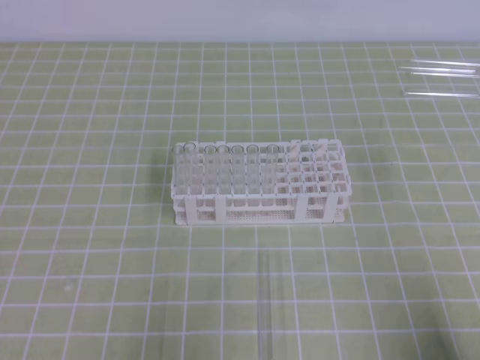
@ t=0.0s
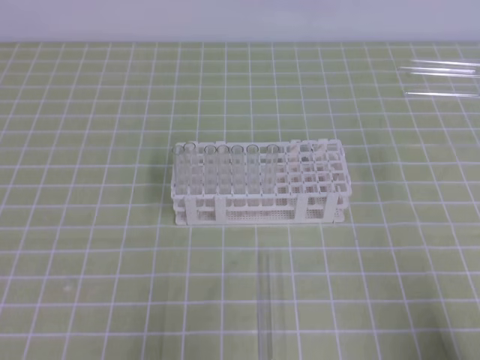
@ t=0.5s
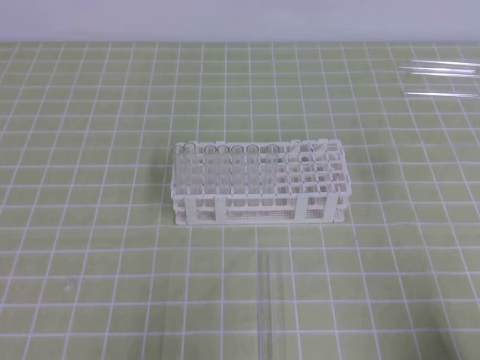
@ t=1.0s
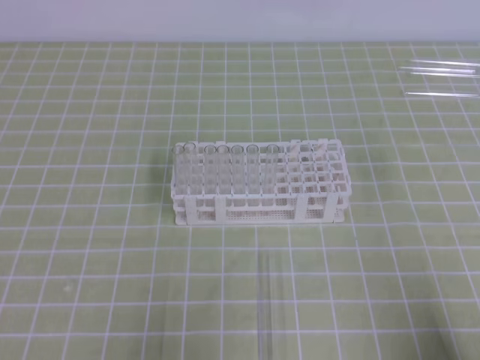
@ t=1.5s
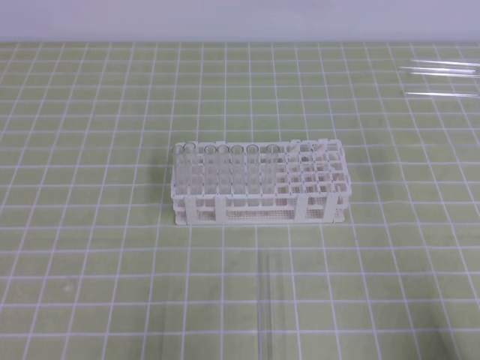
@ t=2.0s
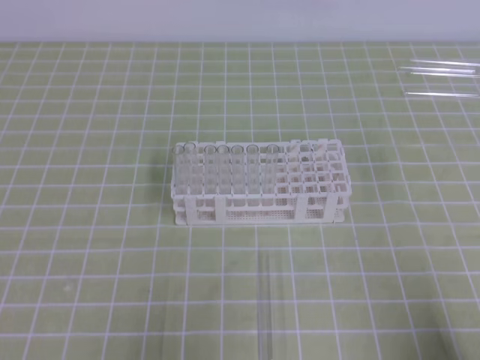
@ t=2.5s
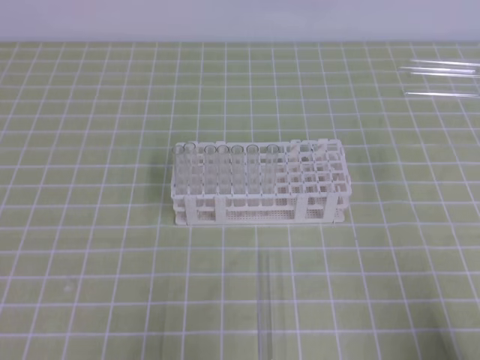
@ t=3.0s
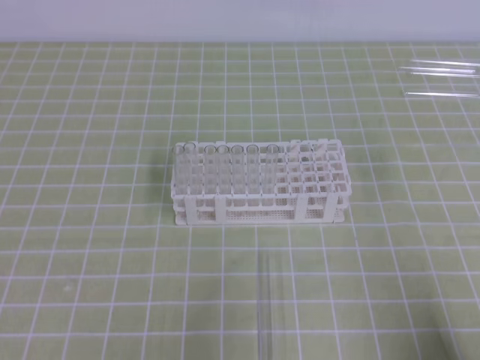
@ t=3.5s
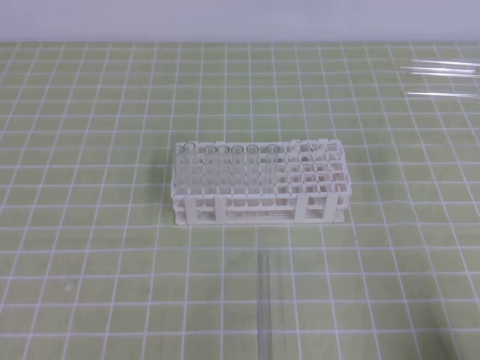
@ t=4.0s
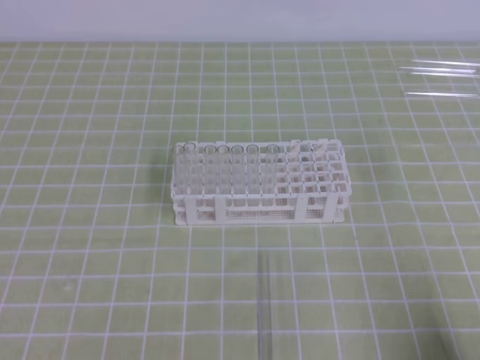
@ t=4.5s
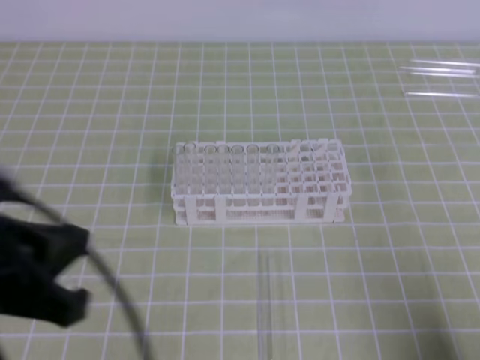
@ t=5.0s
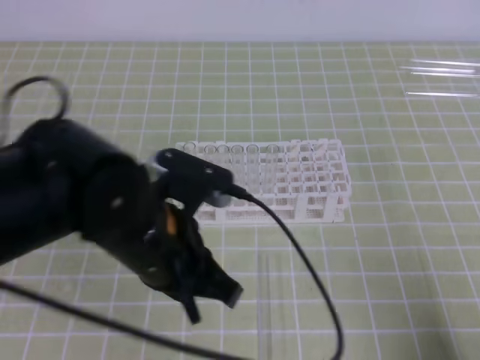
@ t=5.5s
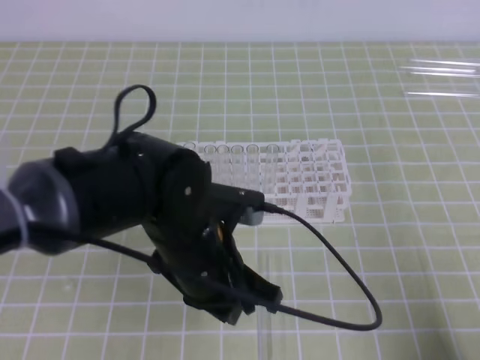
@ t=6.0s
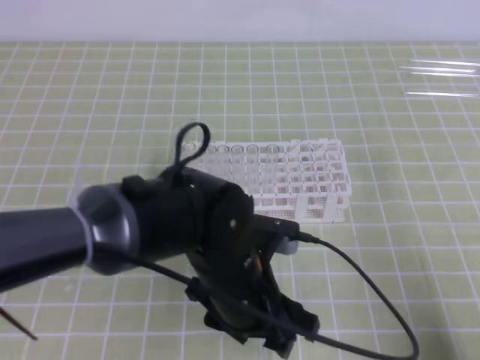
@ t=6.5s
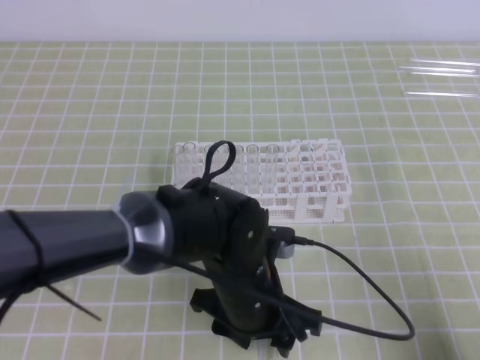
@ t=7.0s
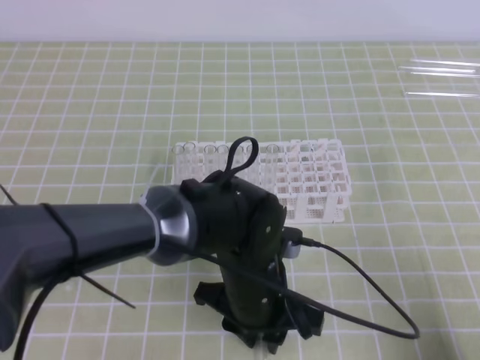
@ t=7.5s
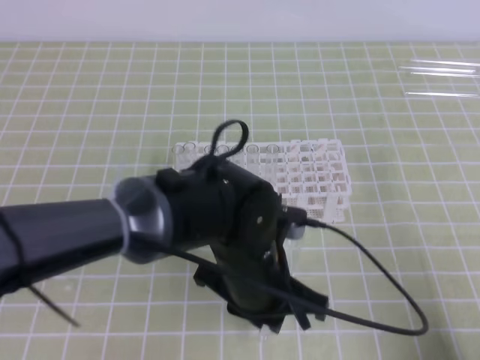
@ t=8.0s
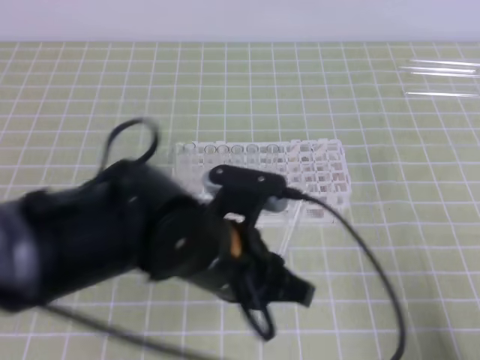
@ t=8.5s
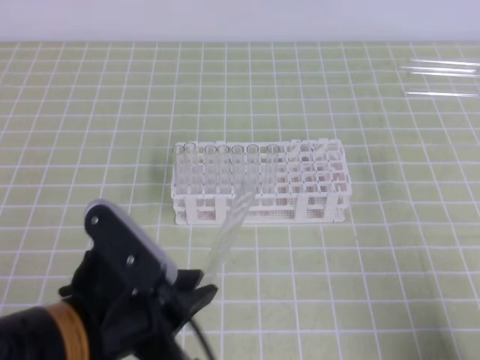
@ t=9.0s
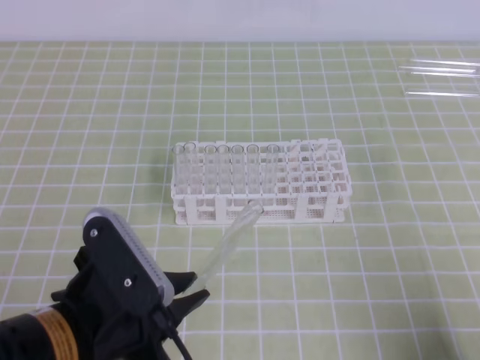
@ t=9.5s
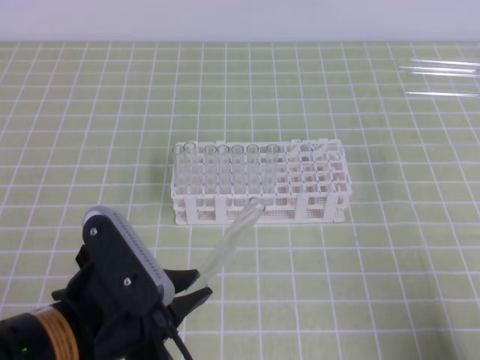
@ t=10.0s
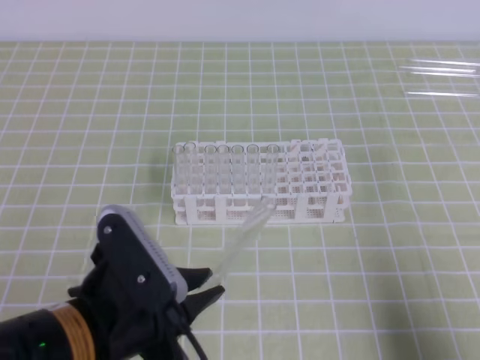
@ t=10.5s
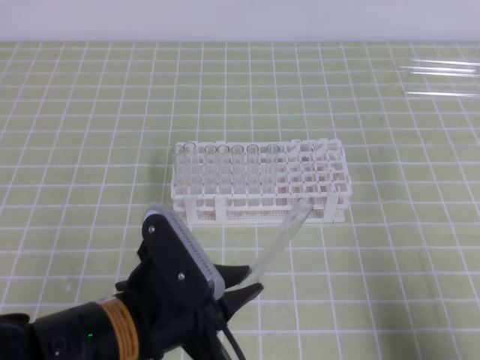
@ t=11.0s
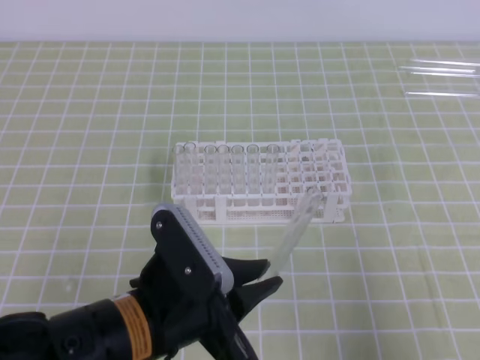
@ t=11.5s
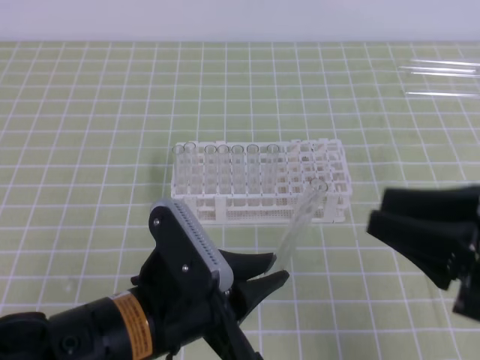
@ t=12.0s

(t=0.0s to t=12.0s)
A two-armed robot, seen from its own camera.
t=0.0s - t=2.0s: Neither gripper changes place.
t=4.0s - t=6.0s: The left gripper moves to the right and forward, roughly 30 cm.
t=6.0s - t=8.0s: The left gripper travels to the right by about 5 cm, and opens, then closes again.
t=8.0s - t=10.0s: The left gripper heads to the left and backward, covering roughly 15 cm.
t=10.0s - t=12.0s: The right gripper goes roughly 15 cm upward, forward and to the left, and opens its fingers, while the left gripper is displaced to the right by approximately 5 cm.

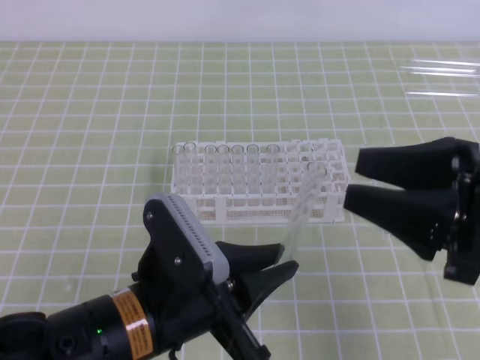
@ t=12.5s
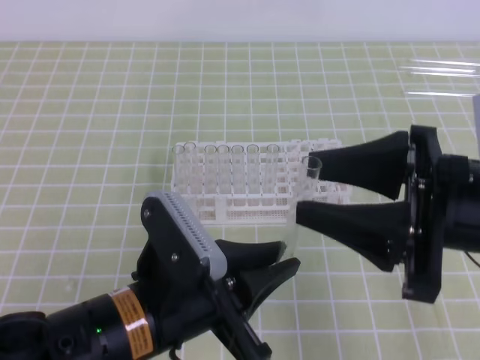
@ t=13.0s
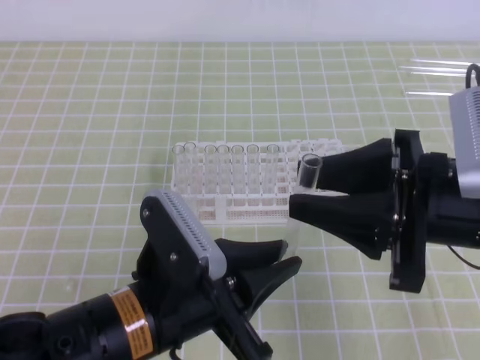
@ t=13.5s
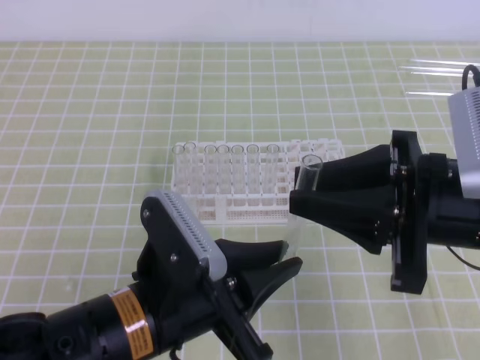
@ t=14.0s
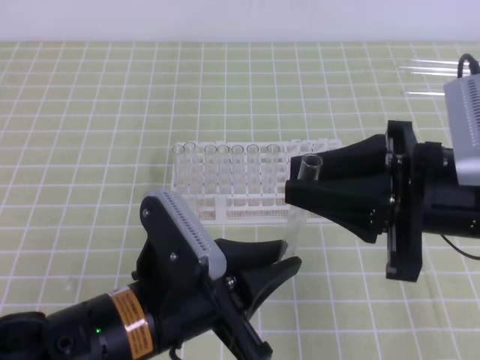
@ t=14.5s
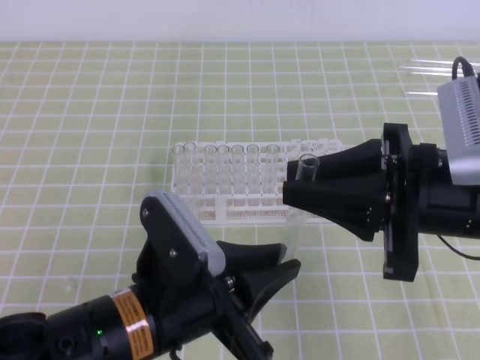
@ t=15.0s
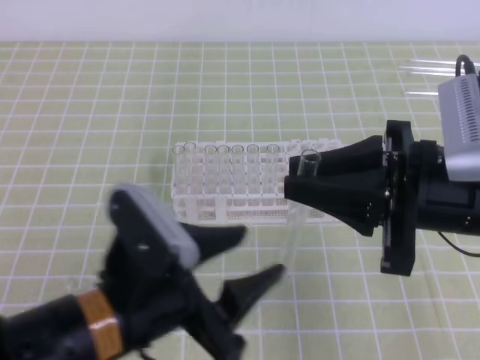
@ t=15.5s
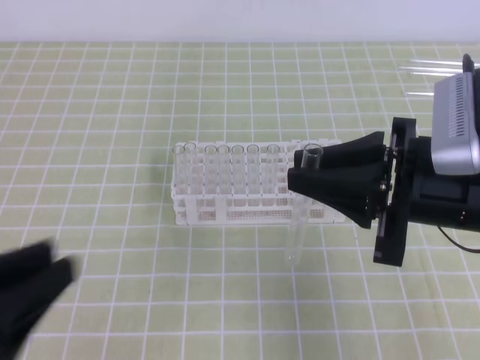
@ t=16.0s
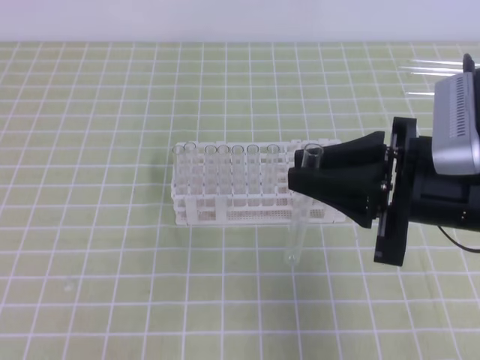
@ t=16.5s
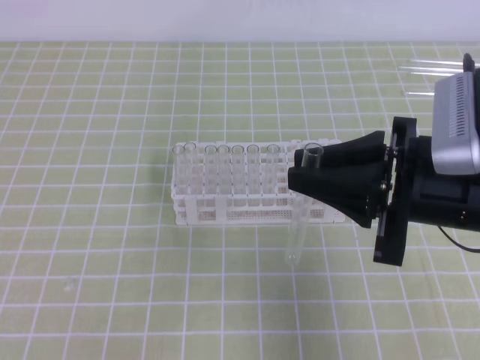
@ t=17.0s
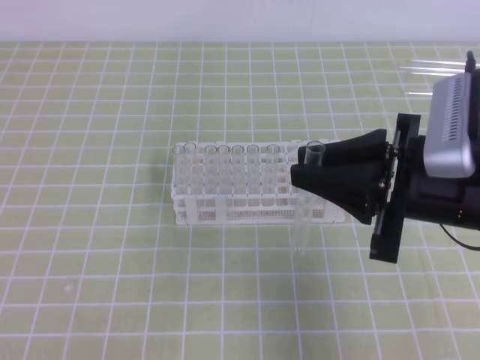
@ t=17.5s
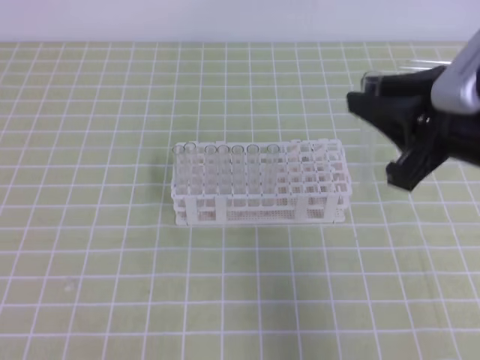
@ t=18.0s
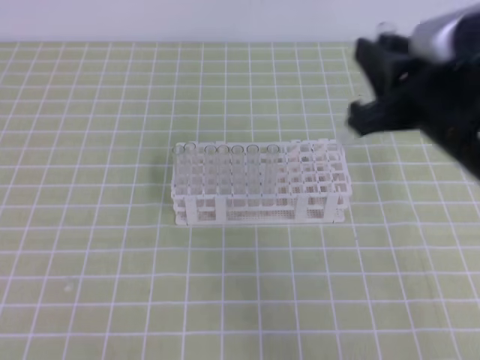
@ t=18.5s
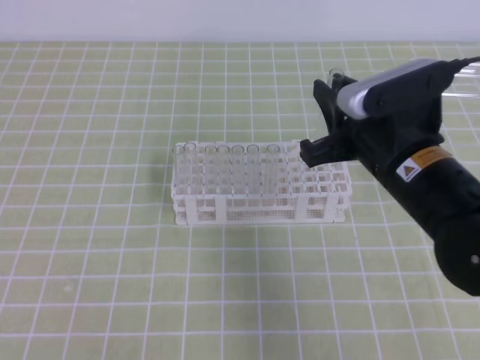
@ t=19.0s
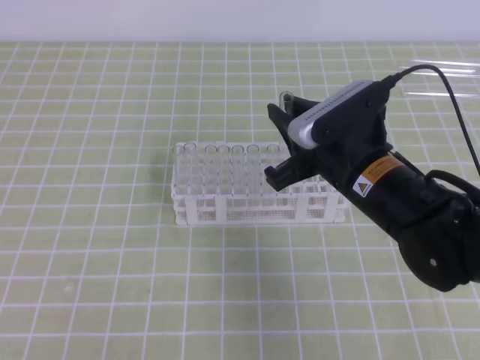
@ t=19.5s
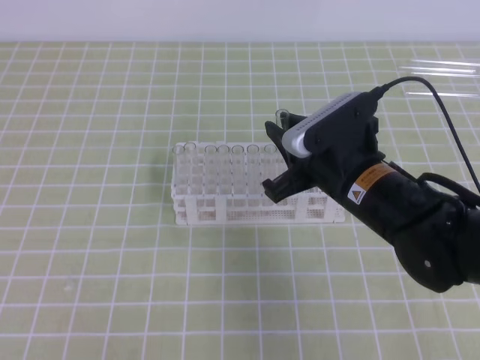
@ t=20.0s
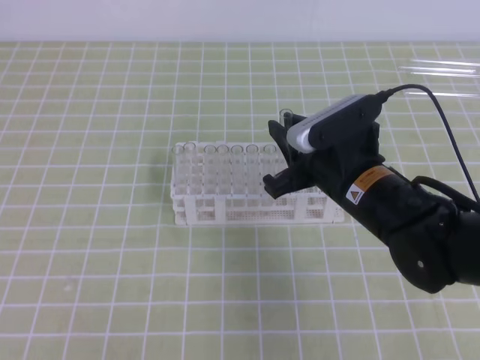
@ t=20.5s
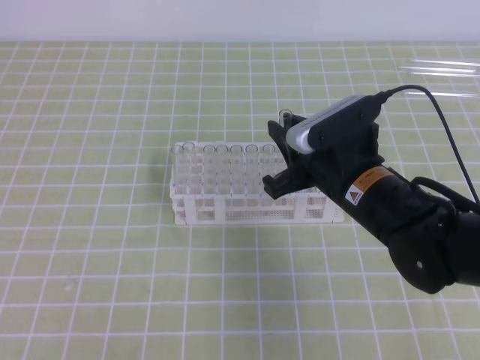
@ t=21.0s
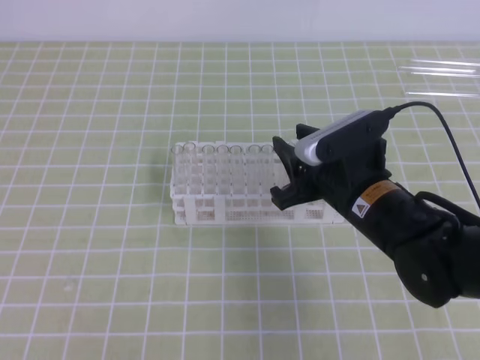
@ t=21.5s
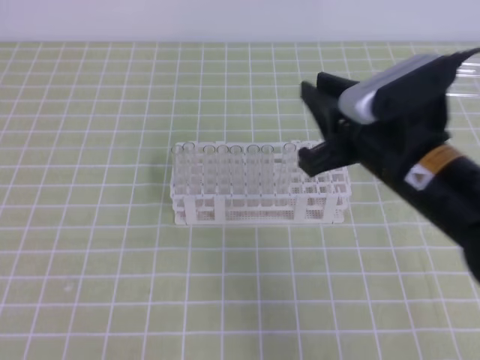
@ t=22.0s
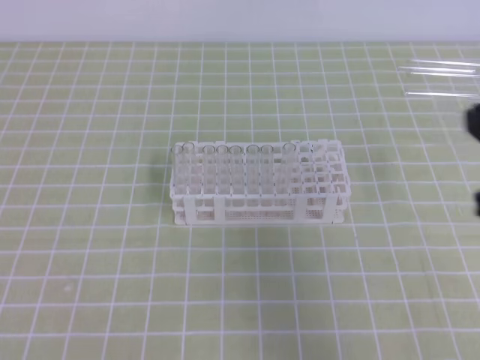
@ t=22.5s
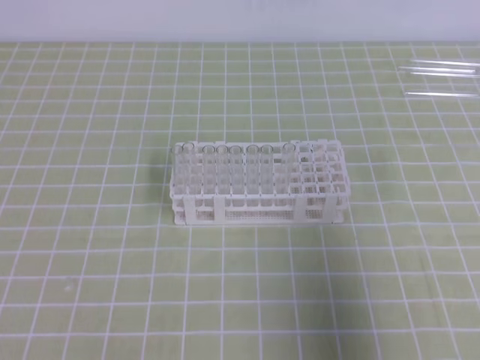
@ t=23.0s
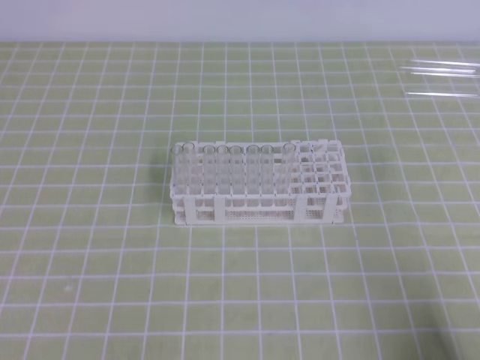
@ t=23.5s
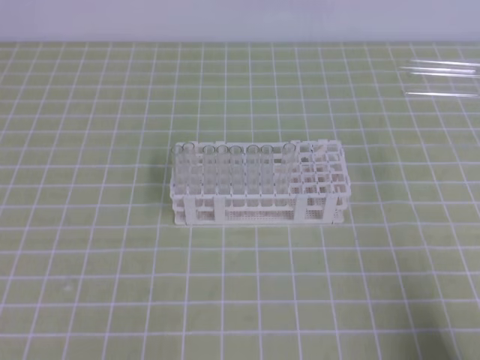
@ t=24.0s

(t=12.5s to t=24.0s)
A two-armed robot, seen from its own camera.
t=12.5s - t=14.5s: The right gripper closes.
t=14.5s - t=16.5s: The left gripper heads to the left and backward, covering approximately 25 cm, and opens, then closes once more.
t=18.5s - t=20.0s: The right gripper goes approximately 10 cm downward and to the left.
t=20.0s - t=22.0s: The right gripper ends up about 5 cm from where it was.
t=22.0s - t=24.0s: The right gripper goes approximately 30 cm backward, to the right and downward, and closes its fingers.
